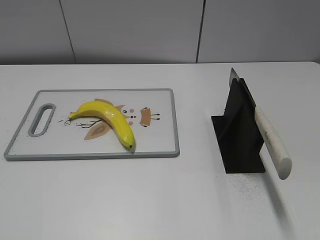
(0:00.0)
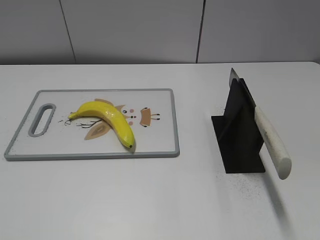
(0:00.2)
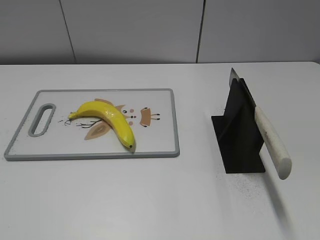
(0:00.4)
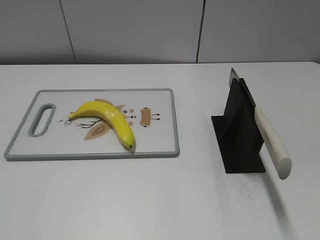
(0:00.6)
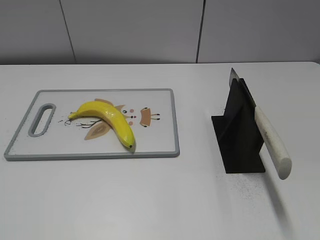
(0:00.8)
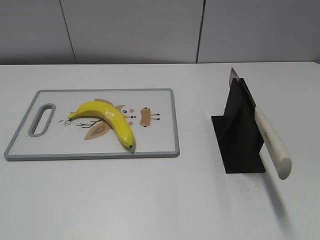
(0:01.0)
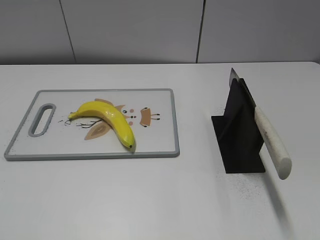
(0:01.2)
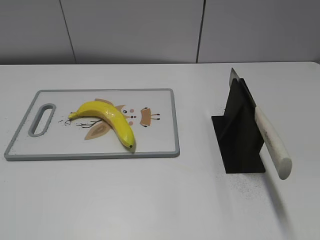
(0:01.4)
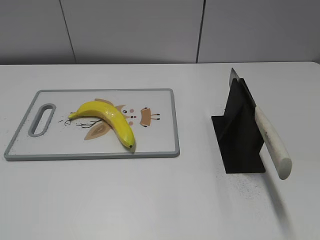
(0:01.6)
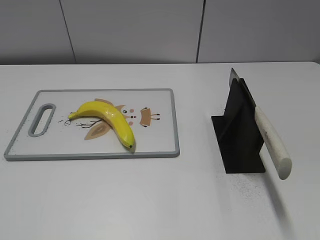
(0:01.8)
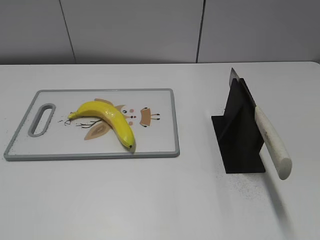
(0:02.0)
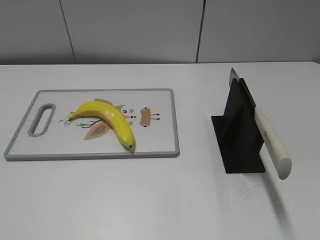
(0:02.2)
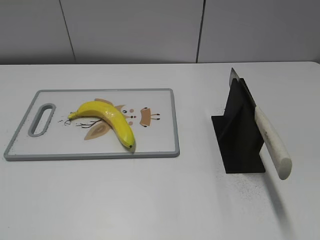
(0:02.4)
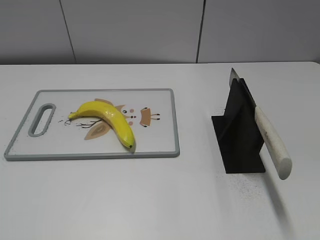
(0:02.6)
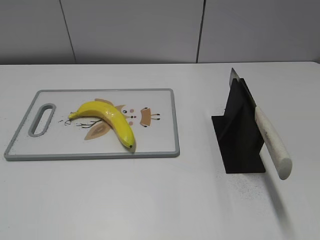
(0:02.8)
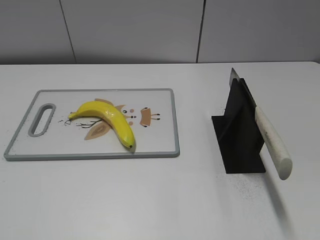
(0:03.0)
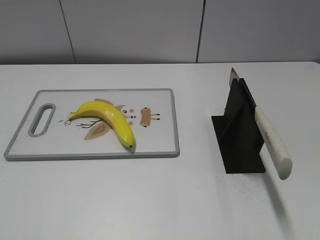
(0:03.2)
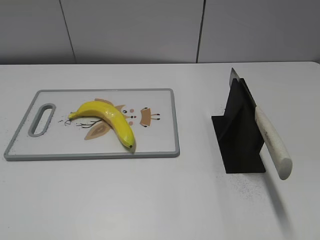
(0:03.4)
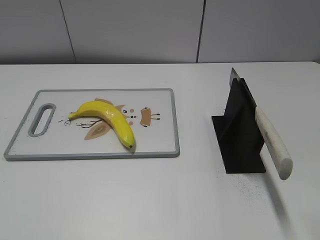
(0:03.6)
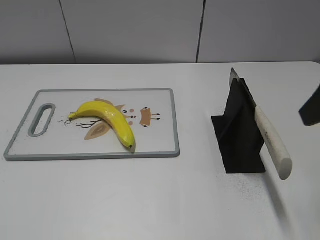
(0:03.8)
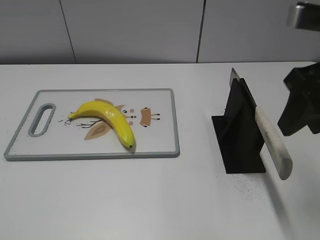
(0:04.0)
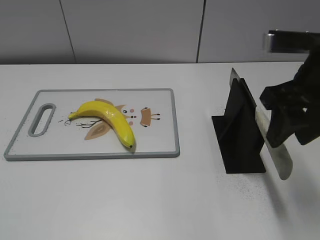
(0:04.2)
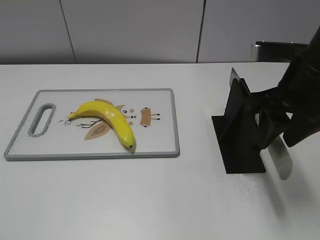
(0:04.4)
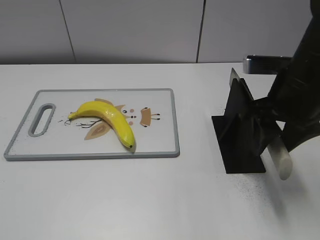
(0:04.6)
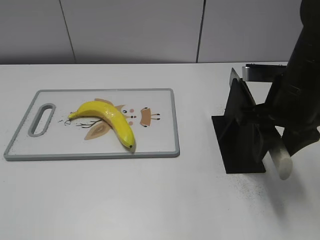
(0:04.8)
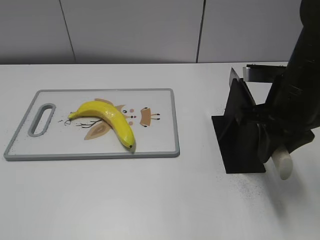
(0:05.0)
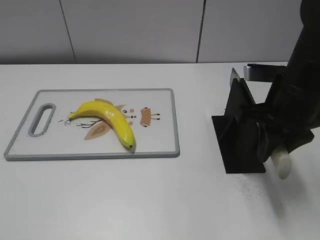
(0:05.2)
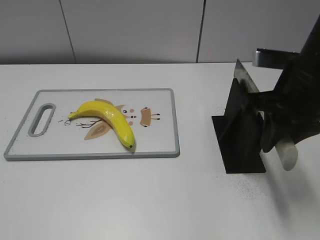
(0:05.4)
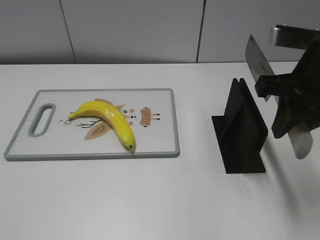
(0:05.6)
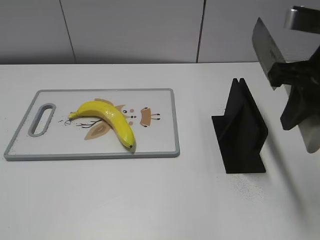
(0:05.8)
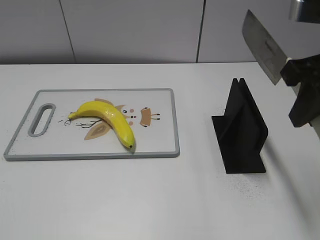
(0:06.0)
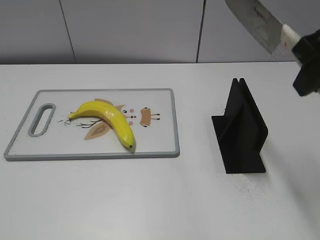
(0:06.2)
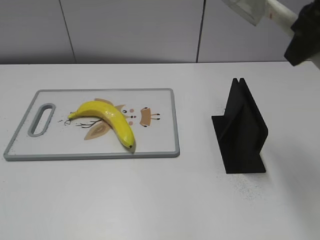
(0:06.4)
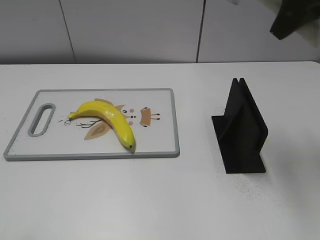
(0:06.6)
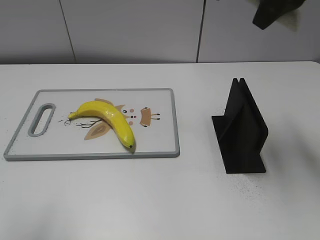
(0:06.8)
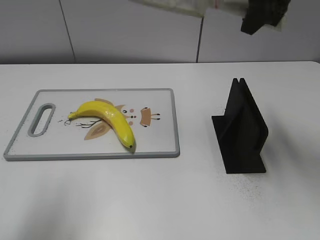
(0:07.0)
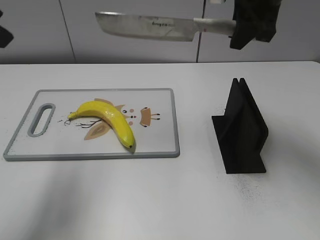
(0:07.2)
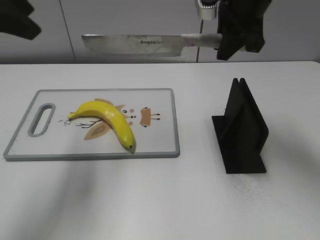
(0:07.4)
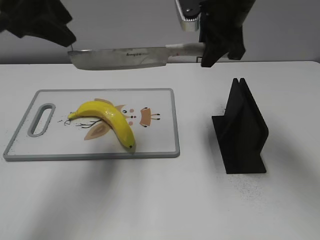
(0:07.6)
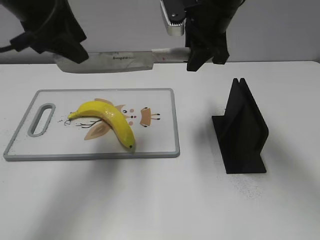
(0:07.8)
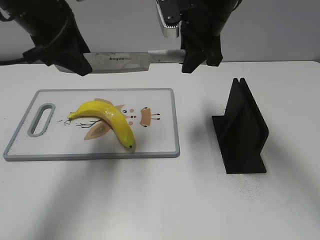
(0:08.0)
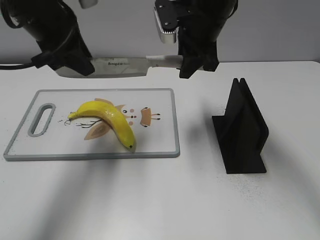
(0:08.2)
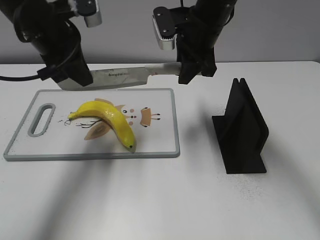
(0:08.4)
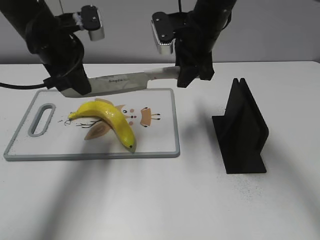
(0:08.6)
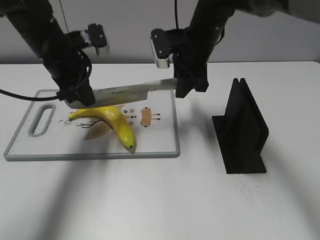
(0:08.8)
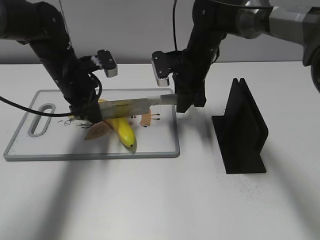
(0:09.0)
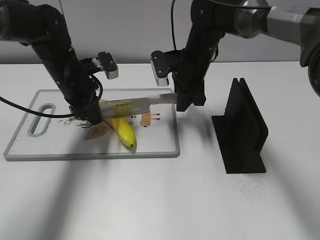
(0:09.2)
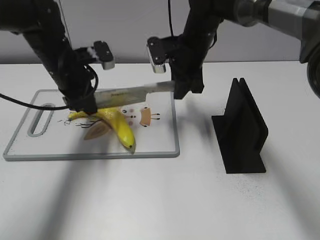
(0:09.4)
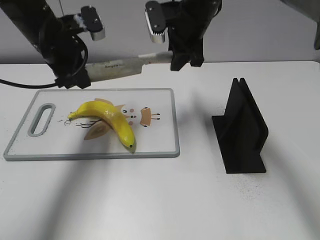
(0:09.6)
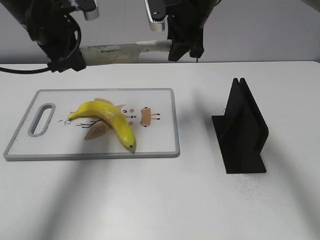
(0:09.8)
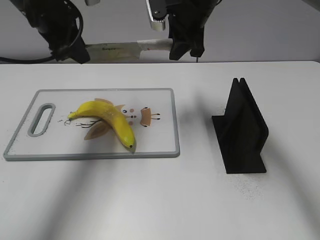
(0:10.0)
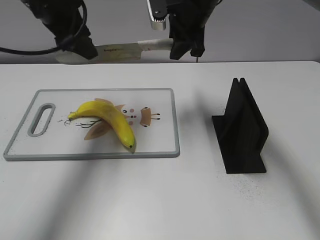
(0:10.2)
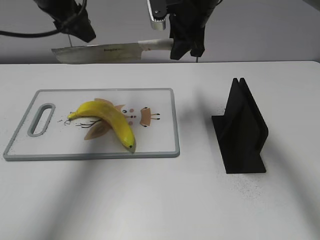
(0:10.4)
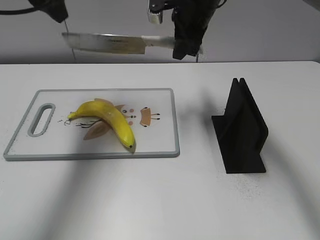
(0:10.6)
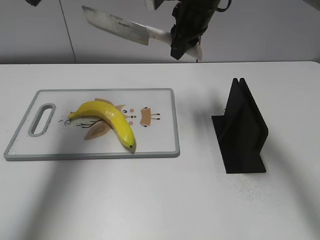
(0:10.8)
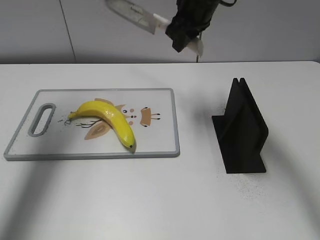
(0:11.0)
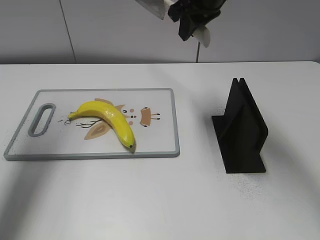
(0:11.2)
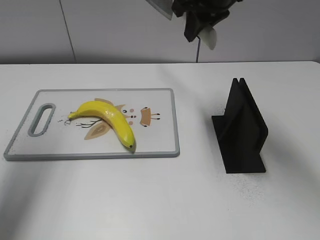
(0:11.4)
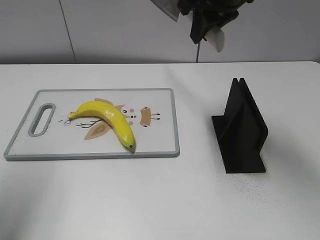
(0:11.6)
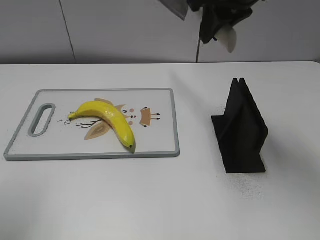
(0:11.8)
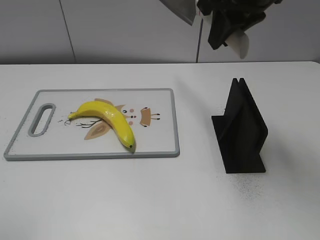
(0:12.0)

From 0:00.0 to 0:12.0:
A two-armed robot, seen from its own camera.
Task of the whole recording: cut plastic banana.
Step, from 0:00.0 to 0:06.2: Grab the knife handle with your right hand.
Step, from 0:06.4 to 0:10.6: Lift the knife with your right hand.
Step, from 0:11.0 to 0:11.2: Cut the banana with your right hand.
From 0:03.0 to 0:04.4: The right gripper goes about 20 cm forward and to the left.
From 0:04.4 to 0:06.0: The right gripper travels upward by some 5 cm, and closes.
From 0:06.0 to 0:07.6: The right gripper shifts approximately 20 cm forward and to the left. Meanwhile the left gripper shifts approximately 30 cm forward.
From 0:07.6 to 0:09.0: The left gripper goes some 20 cm downward and forward, and closes up. The right gripper moves downward, some 15 cm.
From 0:09.0 to 0:10.4: The grippers both shift upward by approximately 15 cm. The left gripper opens up.
From 0:10.4 to 0:12.0: The right gripper shifts approximately 15 cm backward, upward and to the right, while the left gripper travels backward and to the left by roughly 30 cm.

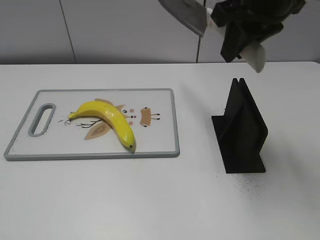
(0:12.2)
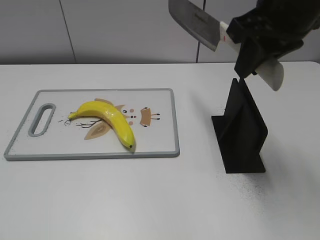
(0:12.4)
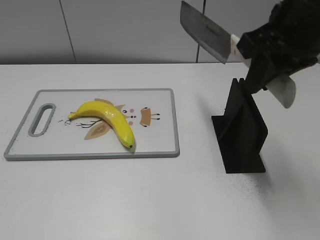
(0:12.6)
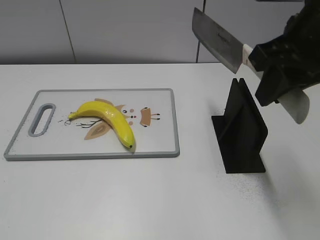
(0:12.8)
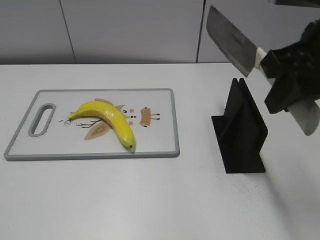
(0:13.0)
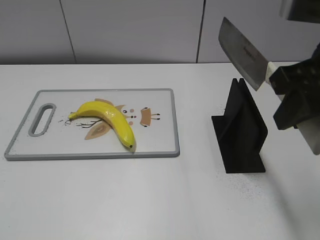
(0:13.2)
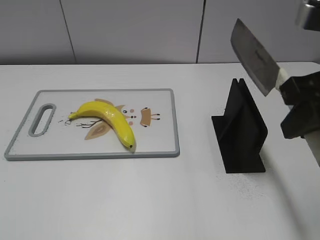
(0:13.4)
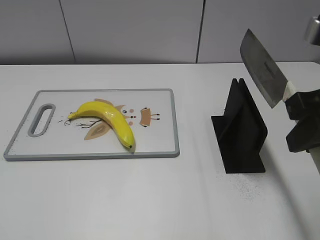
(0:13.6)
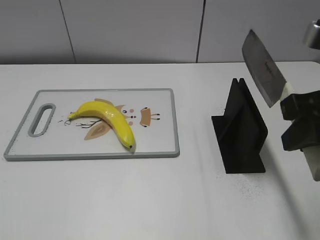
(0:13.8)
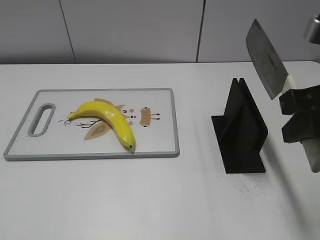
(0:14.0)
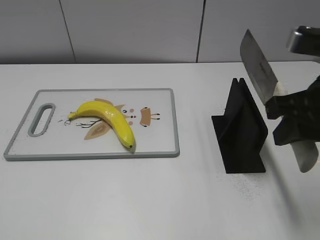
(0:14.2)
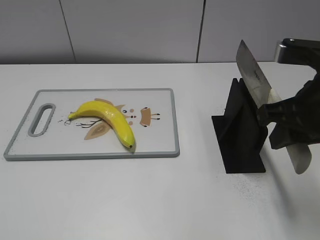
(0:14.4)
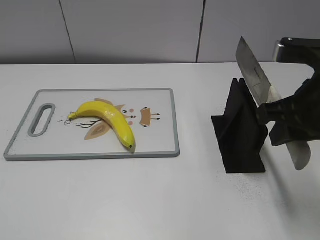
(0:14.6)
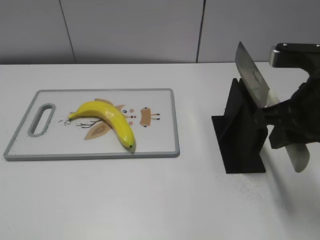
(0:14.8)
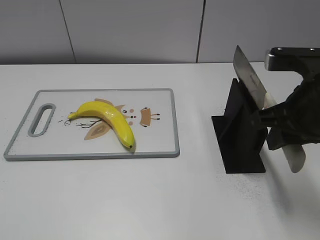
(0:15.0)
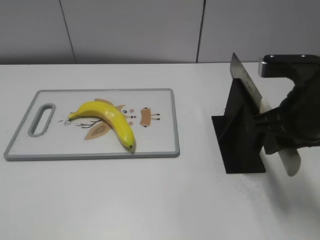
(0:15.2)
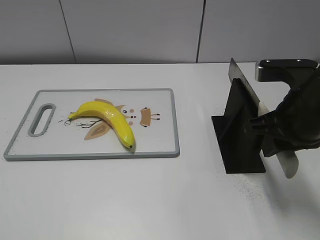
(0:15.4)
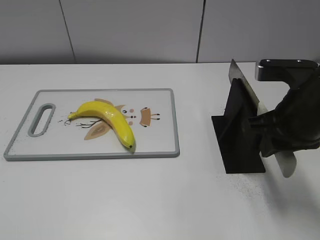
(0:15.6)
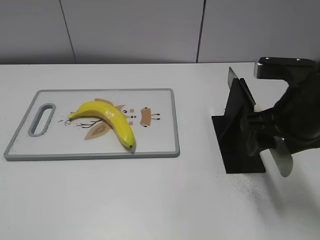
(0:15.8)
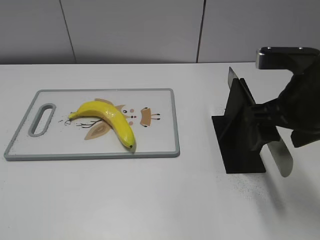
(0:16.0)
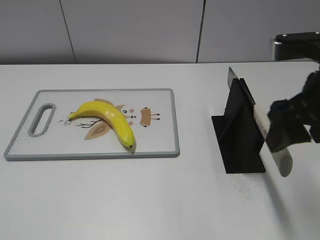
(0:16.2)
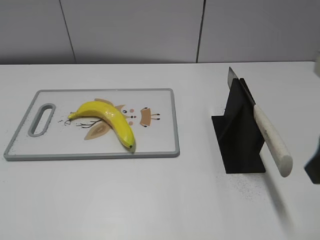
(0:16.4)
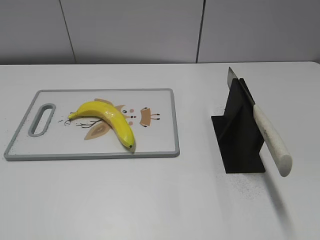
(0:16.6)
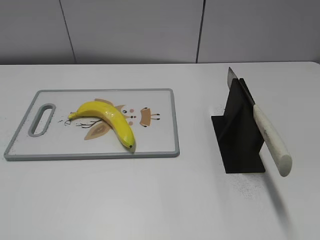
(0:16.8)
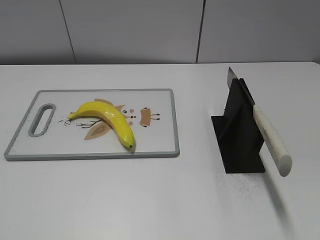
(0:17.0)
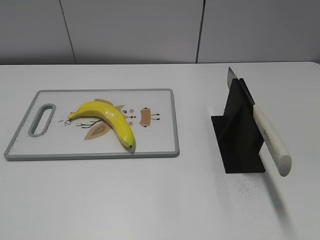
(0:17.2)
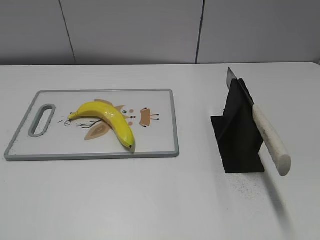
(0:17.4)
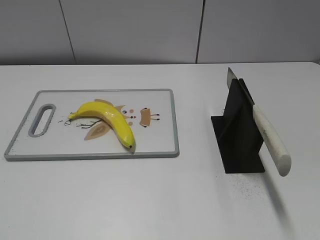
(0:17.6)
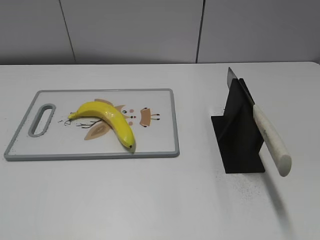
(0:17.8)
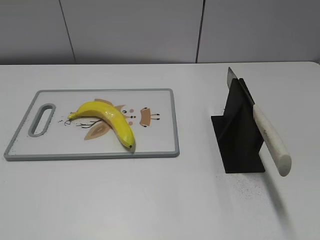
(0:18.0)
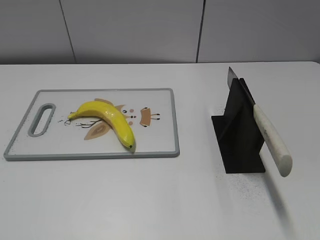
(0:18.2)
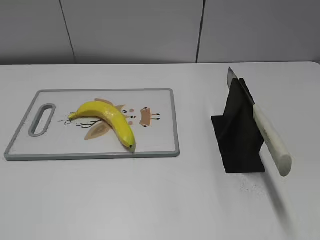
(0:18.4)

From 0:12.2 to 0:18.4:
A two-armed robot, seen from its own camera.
Task of the whole recording: cut plastic banana.
Step, from 0:12.2 to 0:18.4: Place the knife on the storage rack with your right hand.
From 0:12.2 to 0:13.8: The left gripper shifts approximately 10 cm downward and backward, while the right gripper moves backward and to the right, roughly 15 cm.
From 0:13.8 to 0:15.4: The right gripper is displaced downward and forward by approximately 10 cm.
From 0:15.4 to 0:16.8: The right gripper travels backward and to the right by some 20 cm, and opens.

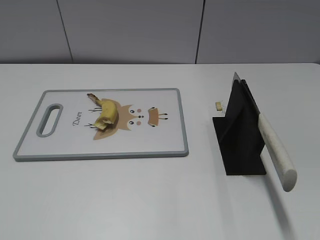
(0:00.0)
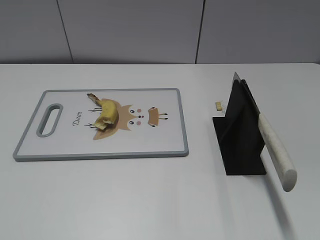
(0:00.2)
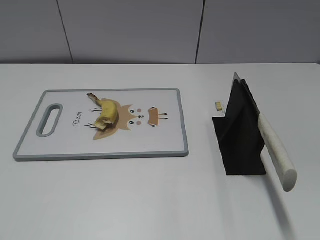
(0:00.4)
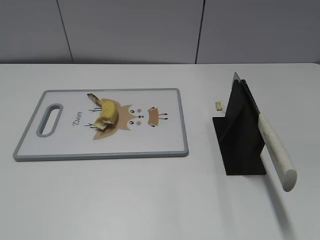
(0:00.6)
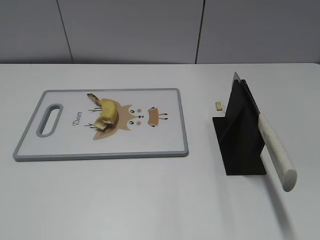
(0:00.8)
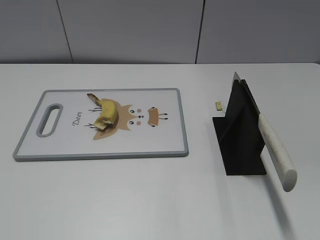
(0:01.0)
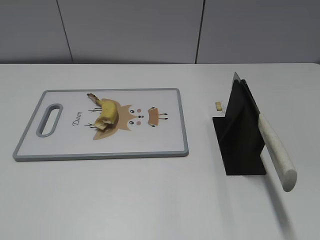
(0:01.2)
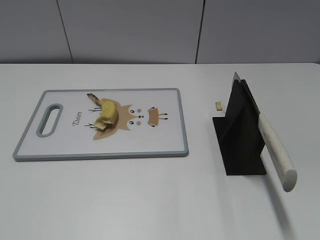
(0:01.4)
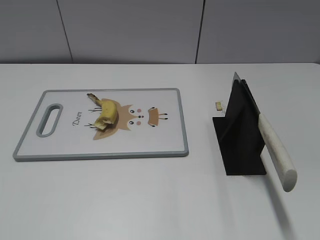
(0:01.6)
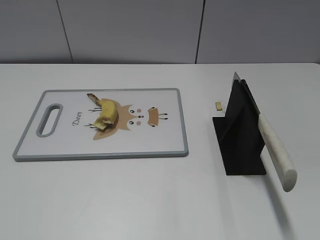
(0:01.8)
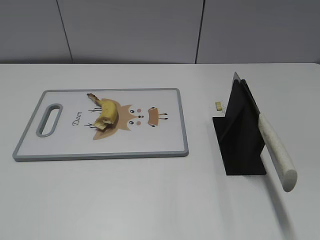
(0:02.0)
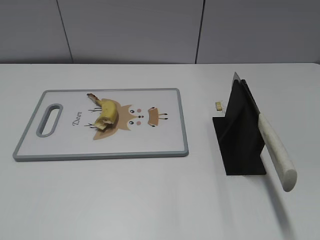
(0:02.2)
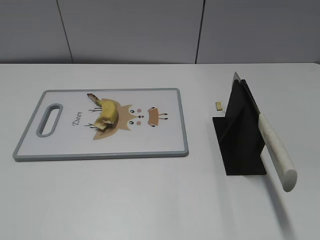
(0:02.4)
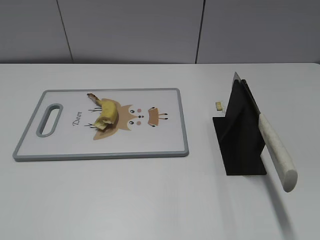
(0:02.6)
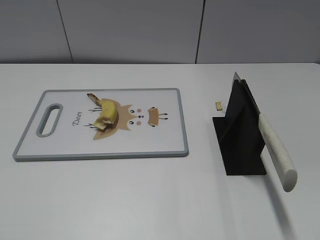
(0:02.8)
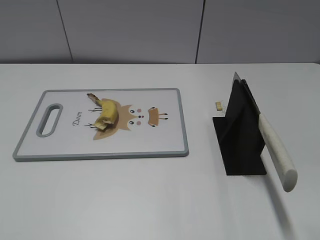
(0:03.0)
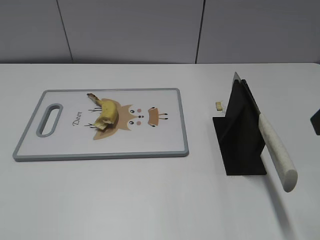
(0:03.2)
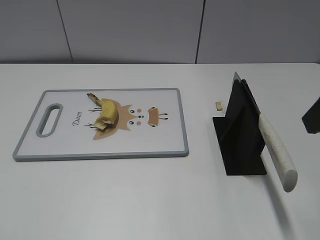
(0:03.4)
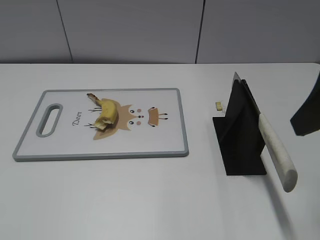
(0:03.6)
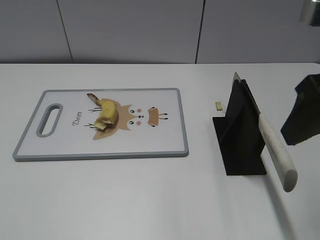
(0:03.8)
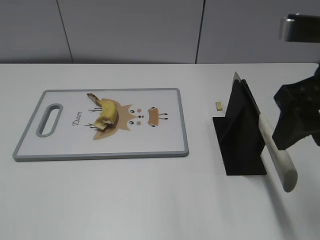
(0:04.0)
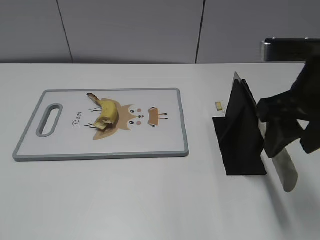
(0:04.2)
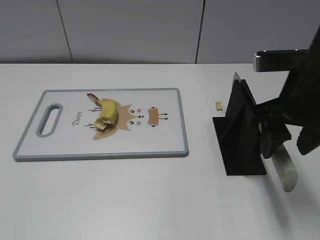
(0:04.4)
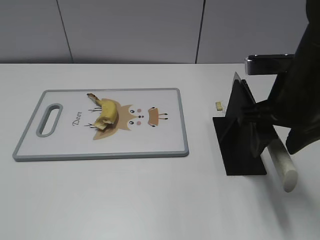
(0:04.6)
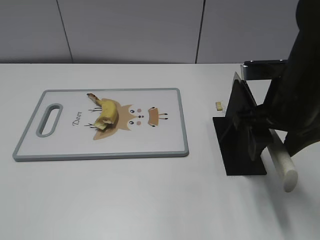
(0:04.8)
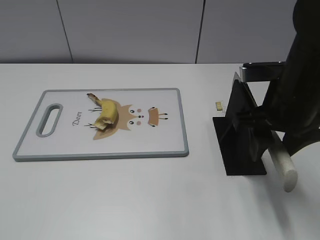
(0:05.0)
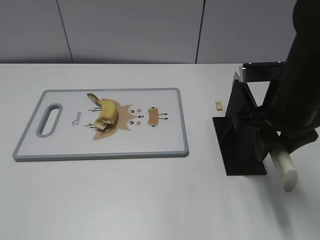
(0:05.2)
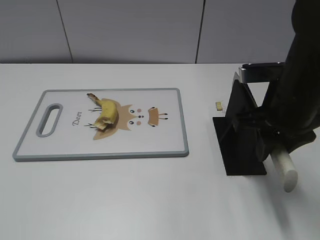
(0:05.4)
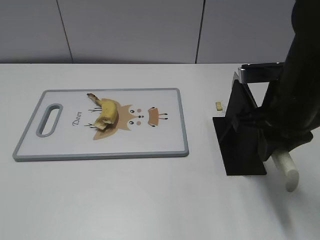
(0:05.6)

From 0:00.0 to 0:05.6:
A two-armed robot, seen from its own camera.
Task of the whole recording: cut banana.
From 0:02.8 to 0:04.2: The right gripper heads forward, to the left and downward, covering about 15 cm.
From 0:04.2 to 0:05.6: The right gripper is displaced downward by some 5 cm, and closes up.
